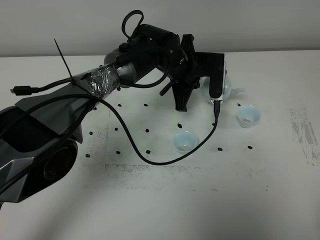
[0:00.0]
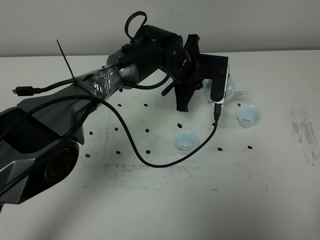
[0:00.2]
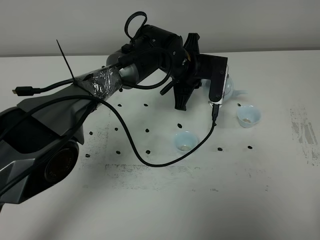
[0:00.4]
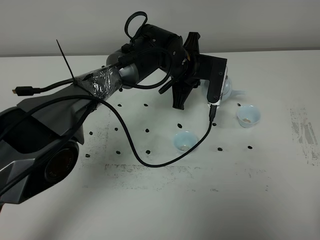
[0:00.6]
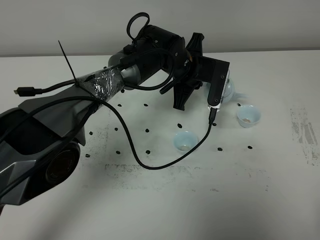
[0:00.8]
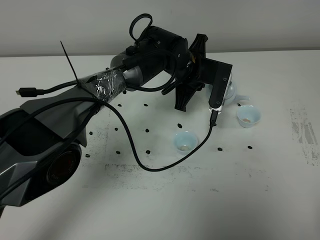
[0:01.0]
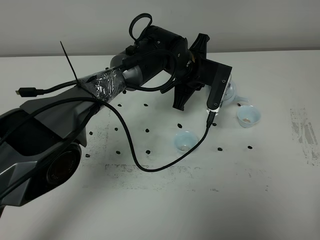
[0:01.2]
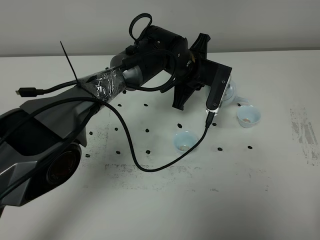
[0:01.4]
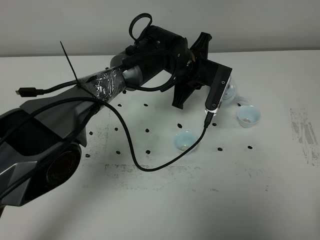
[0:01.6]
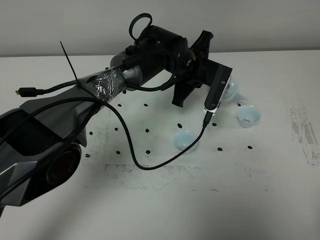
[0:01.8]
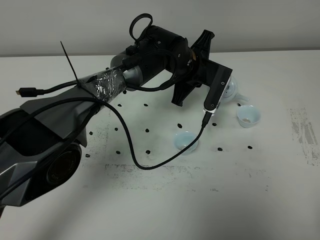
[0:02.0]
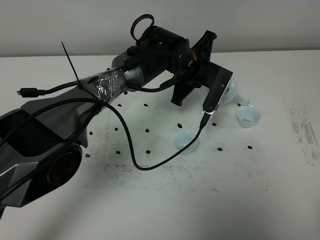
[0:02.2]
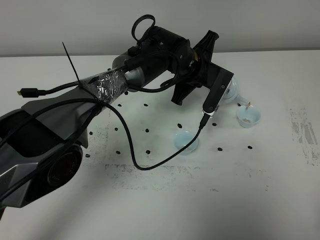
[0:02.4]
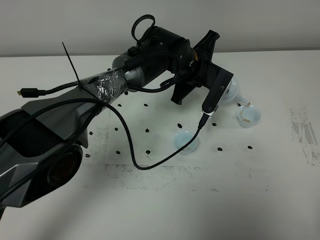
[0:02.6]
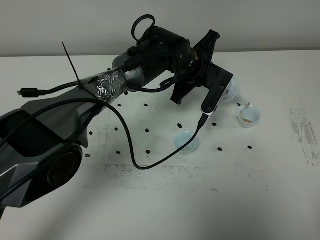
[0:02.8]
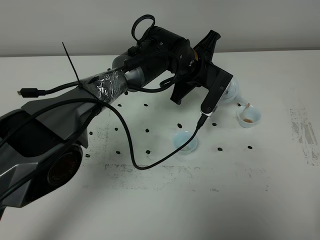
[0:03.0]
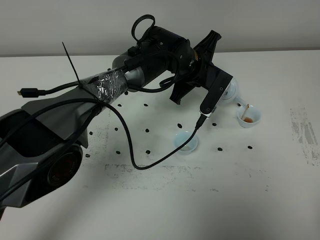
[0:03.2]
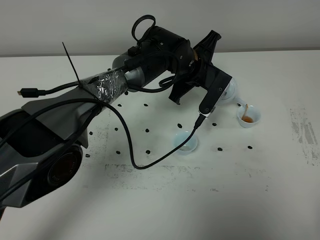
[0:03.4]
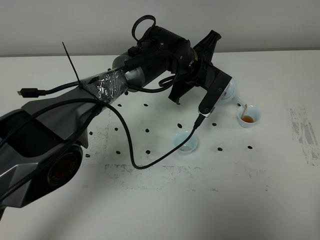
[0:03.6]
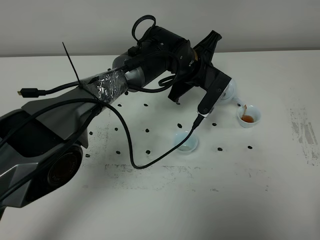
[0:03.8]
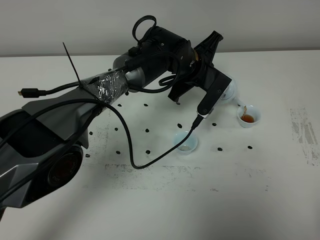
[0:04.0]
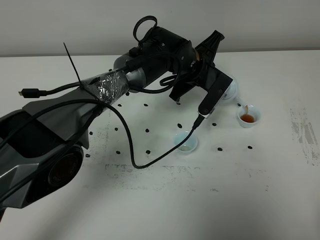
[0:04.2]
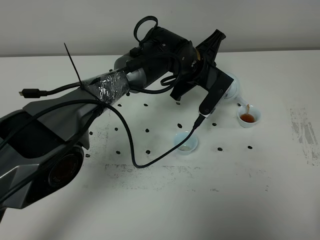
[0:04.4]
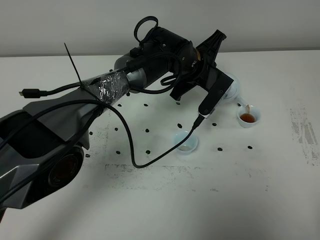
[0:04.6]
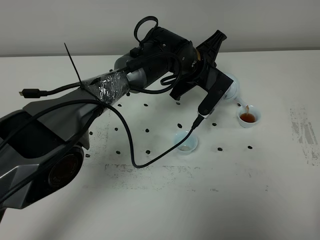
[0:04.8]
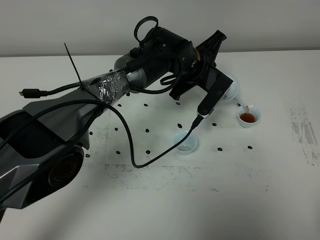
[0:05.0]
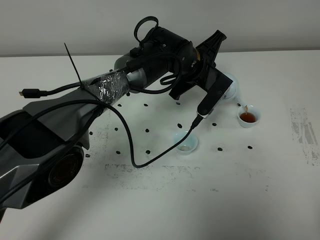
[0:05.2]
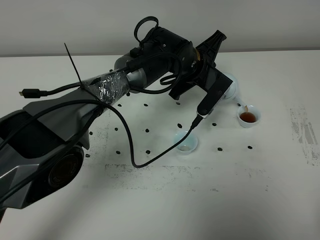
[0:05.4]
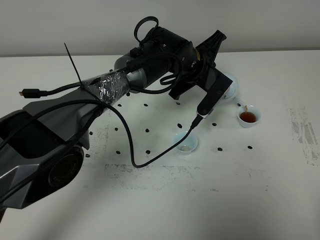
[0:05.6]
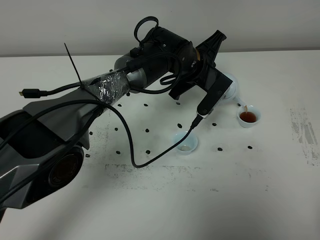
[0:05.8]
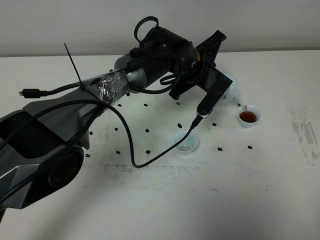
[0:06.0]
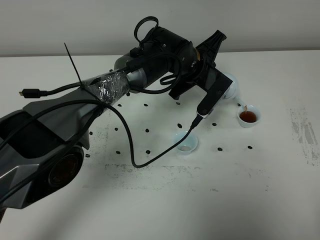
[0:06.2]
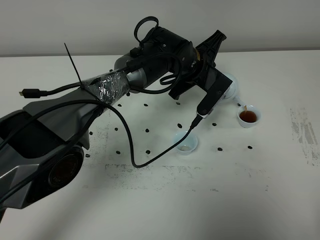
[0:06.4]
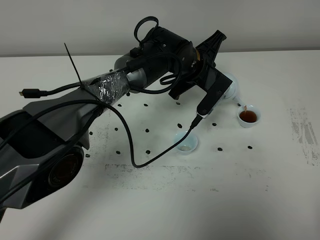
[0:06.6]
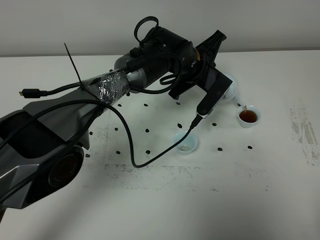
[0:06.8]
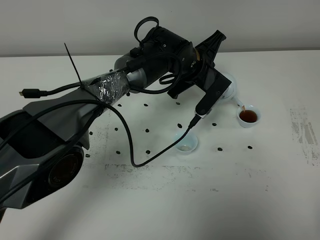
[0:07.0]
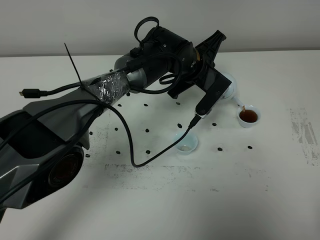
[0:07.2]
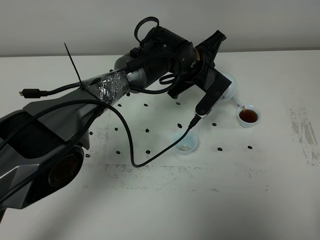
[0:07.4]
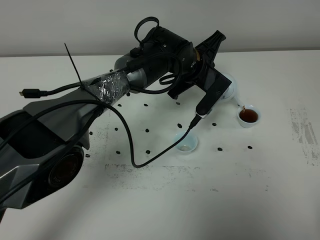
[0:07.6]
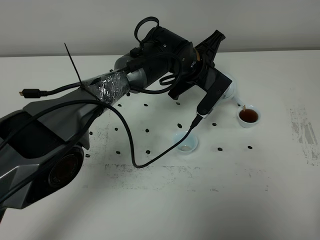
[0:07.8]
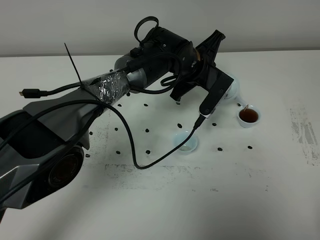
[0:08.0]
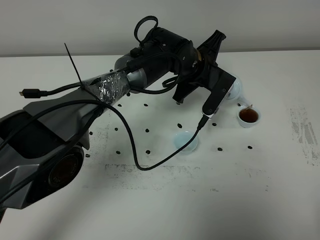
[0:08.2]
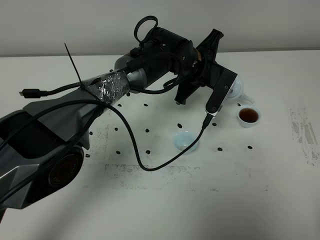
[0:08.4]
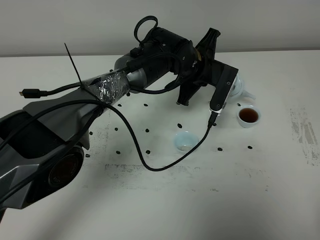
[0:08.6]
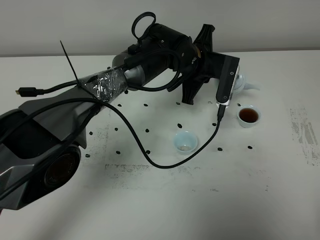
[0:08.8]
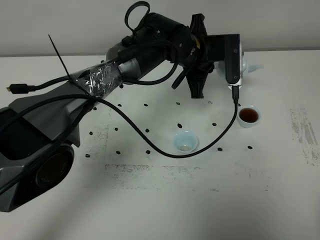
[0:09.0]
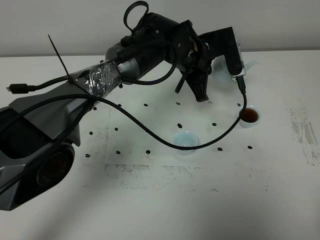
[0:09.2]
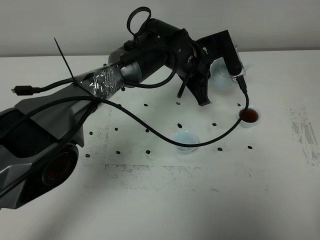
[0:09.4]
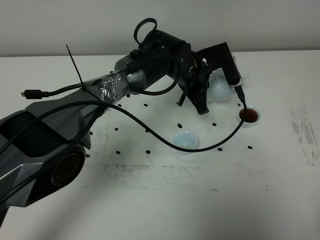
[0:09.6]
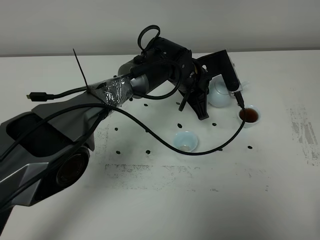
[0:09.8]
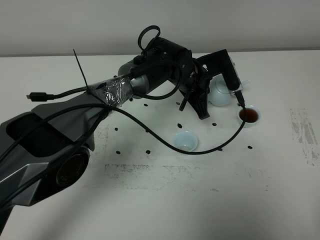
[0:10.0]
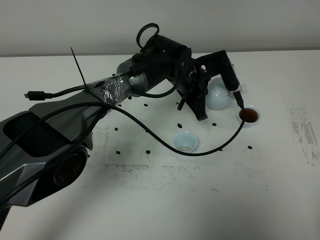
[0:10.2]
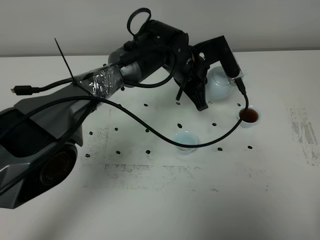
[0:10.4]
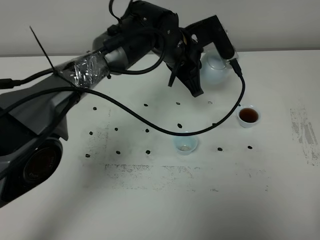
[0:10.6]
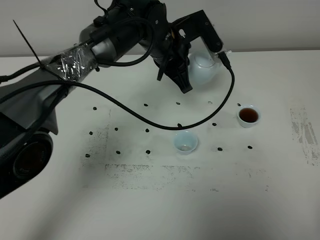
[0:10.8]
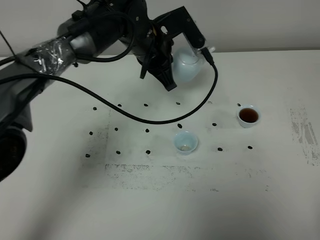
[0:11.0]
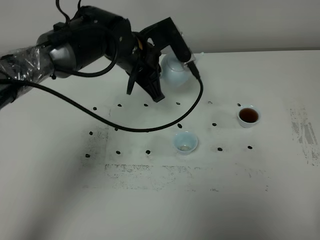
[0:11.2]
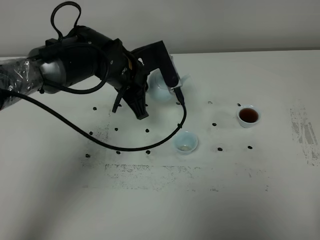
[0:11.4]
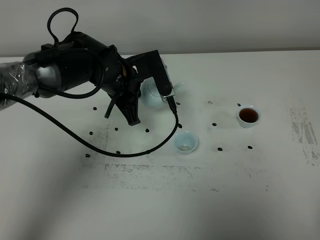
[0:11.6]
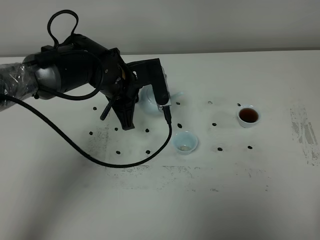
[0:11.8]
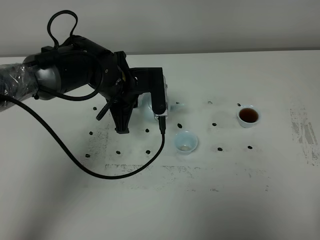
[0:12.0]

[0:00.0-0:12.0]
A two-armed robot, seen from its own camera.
Task of the whole recording: grasp the blue porcelain teapot and pour the tea into the two blue porcelain teacups one by one, put the blue porcelain teapot back in its original place.
Step, 0:00.0 to 0:08.6: Pour tea into the teacup with the left gripper.
0:00.0 to 0:01.6: There are only small adjustments of the grippers.
0:01.6 to 0:04.4: The grippers make only small movements.
0:04.4 to 0:07.6: Neither gripper changes place.
0:10.4 to 0:12.0: The left gripper heads to the left and backward, covering some 15 cm.

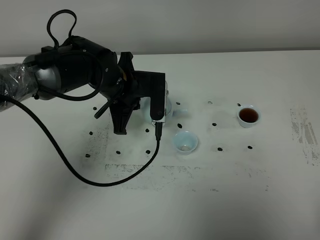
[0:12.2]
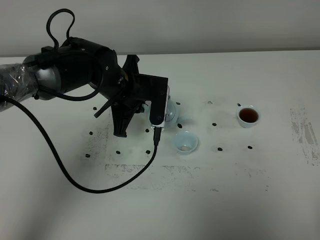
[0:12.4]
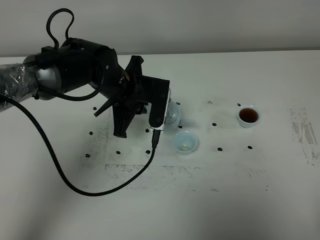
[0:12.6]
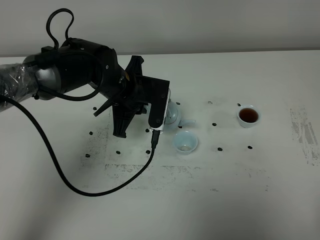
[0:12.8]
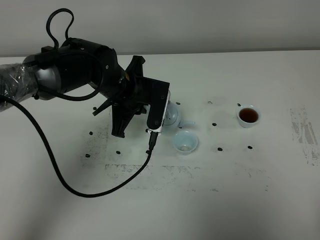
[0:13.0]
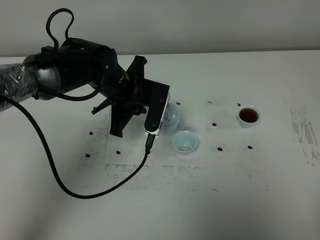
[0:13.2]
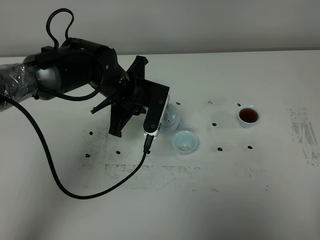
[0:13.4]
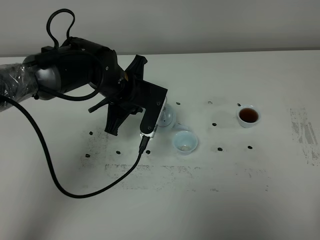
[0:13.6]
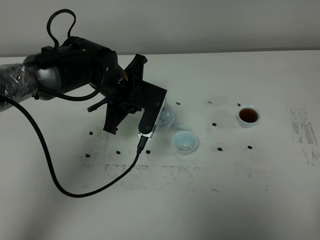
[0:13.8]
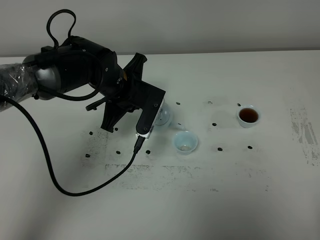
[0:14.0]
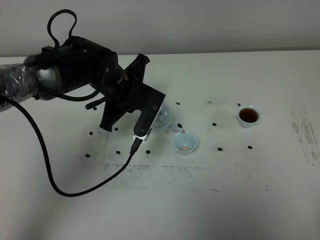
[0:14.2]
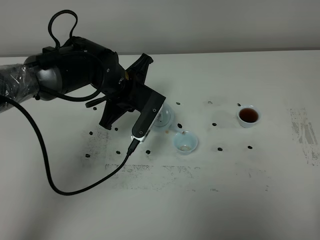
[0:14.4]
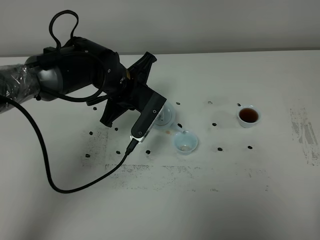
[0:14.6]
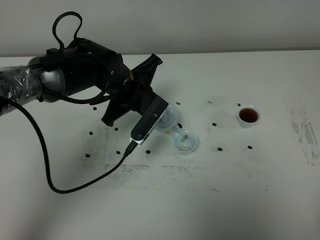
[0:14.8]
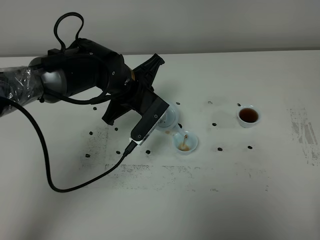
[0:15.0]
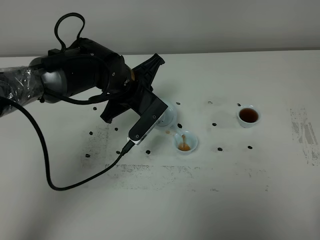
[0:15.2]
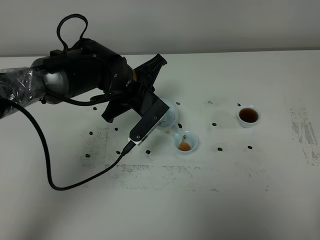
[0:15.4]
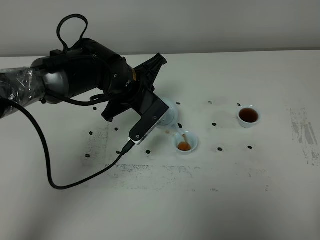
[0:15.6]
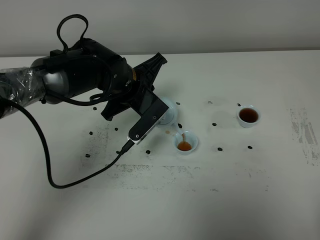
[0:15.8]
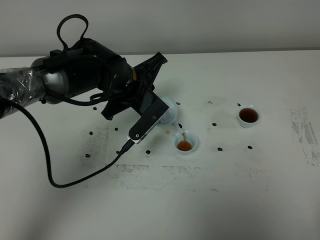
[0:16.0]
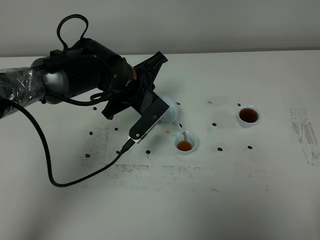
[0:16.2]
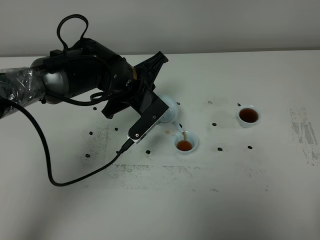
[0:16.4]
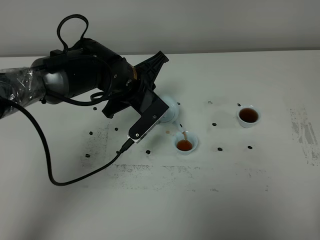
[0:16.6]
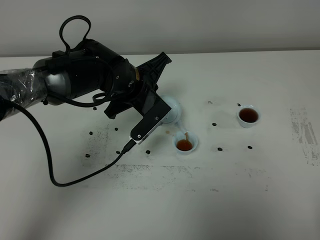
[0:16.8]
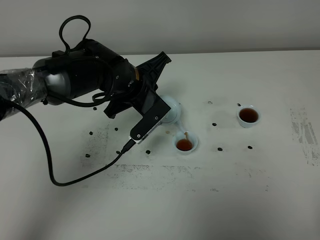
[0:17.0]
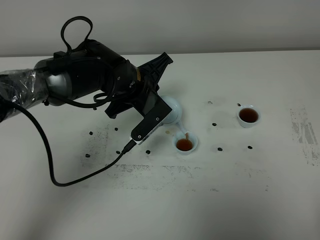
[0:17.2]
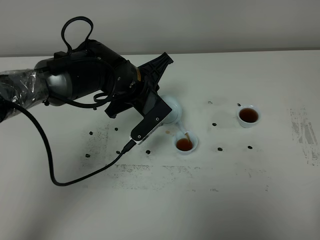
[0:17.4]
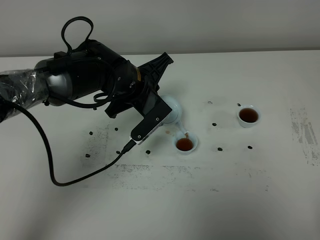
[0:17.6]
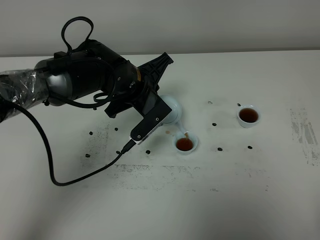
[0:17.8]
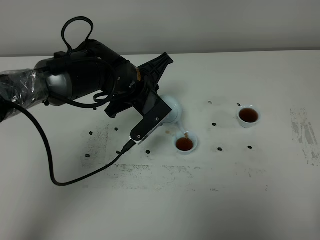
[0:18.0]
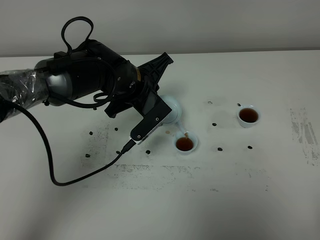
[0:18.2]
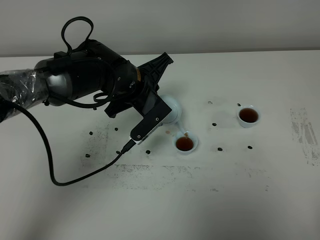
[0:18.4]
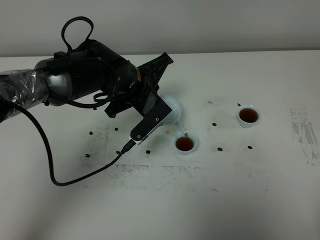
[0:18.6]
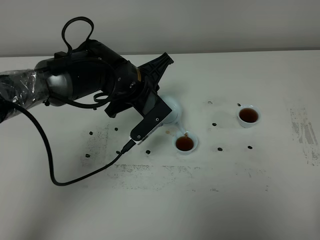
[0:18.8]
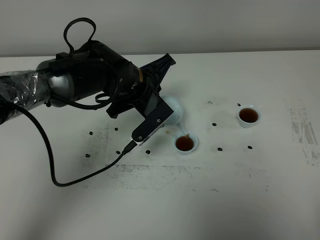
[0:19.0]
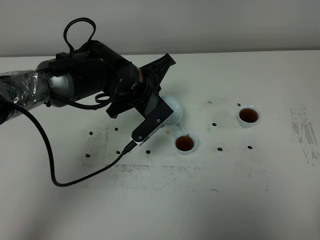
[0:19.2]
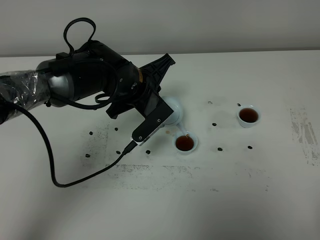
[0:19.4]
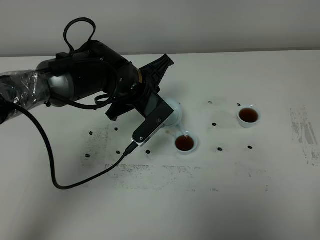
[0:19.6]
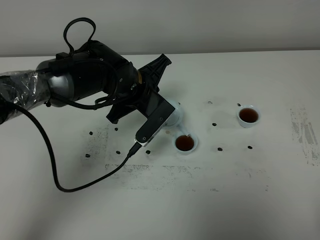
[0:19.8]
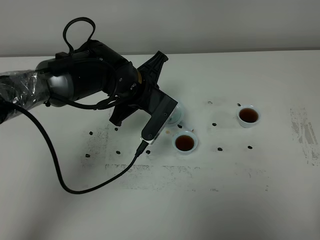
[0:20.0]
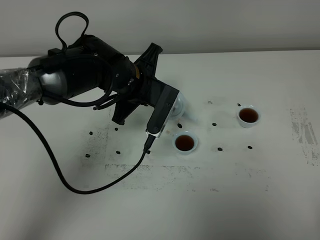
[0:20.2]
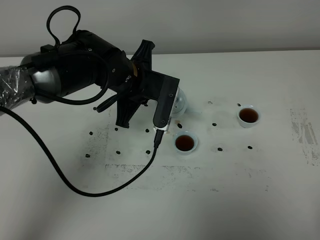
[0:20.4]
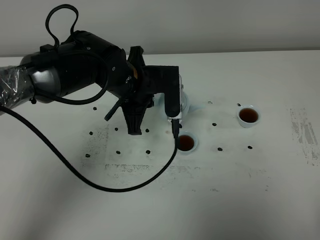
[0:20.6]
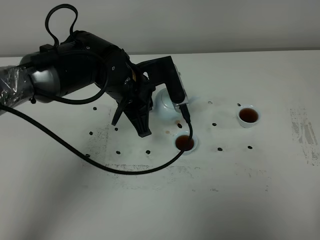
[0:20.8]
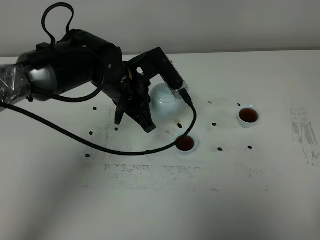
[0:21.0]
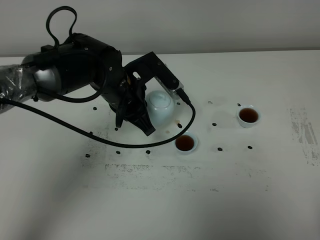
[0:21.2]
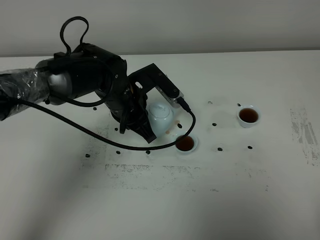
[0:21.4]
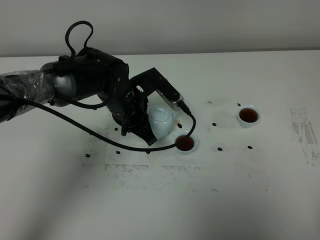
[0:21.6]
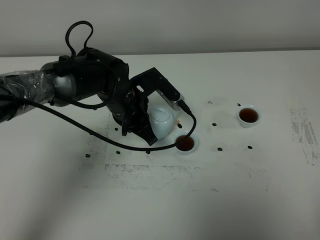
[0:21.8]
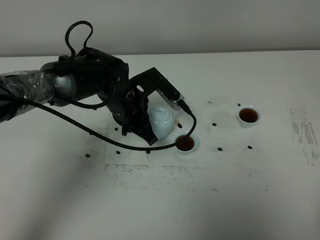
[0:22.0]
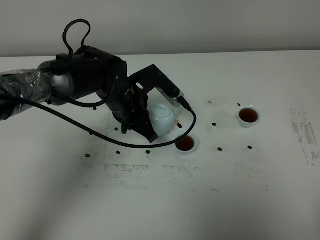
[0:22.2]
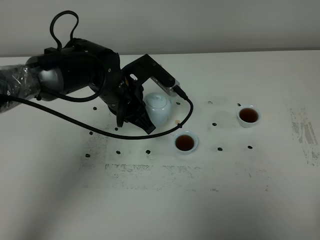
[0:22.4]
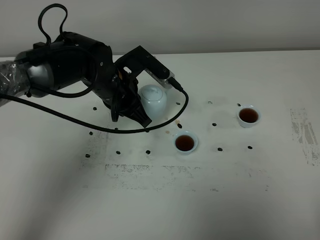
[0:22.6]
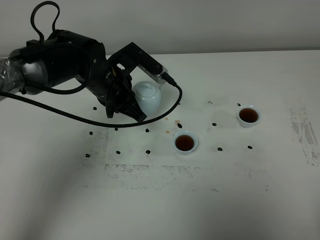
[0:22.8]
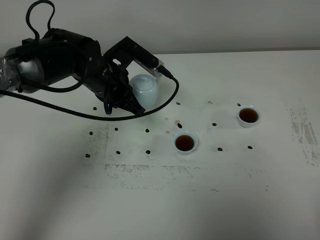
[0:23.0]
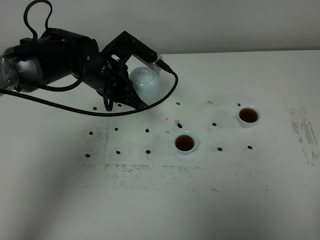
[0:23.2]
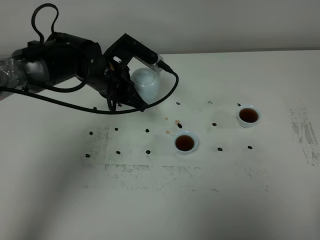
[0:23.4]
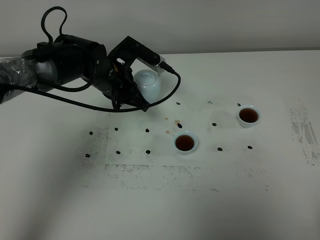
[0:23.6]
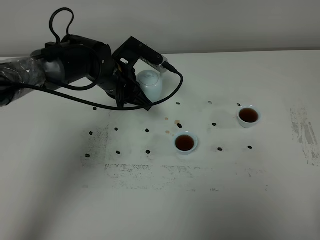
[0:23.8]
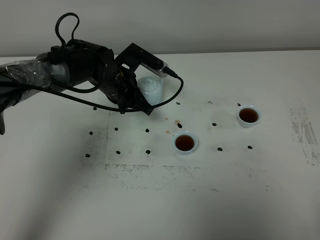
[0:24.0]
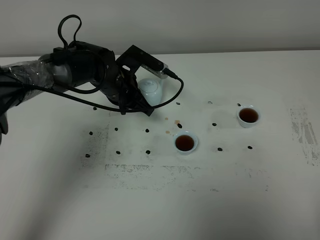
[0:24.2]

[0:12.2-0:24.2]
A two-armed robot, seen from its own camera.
Task of the whole recording: grasp the blue porcelain teapot and pour the tea into the two blue porcelain teacups one by one, put the blue porcelain teapot back in its original place.
Step, 0:12.2 to 0:20.0: Pour tea into the teacup with the left gripper.
0:12.2 to 0:13.8: The grippers make only small movements.
0:15.2 to 0:16.6: The two grippers keep their place.
0:16.6 to 0:18.2: Both grippers stay about where they are.
0:18.2 to 0:19.8: The grippers move only a little.
0:21.2 to 0:22.6: The grippers move only a little.
0:22.6 to 0:24.2: The left gripper shifts roughly 5 cm forward and downward.
